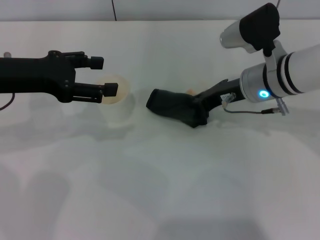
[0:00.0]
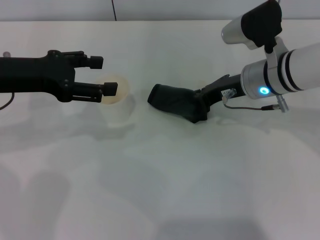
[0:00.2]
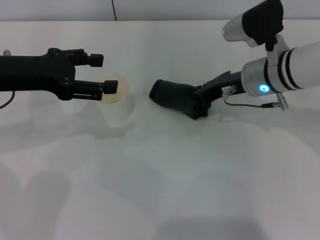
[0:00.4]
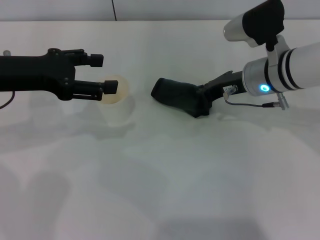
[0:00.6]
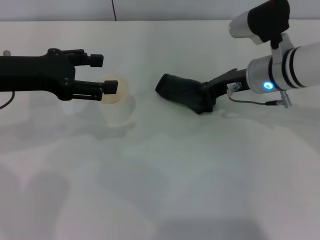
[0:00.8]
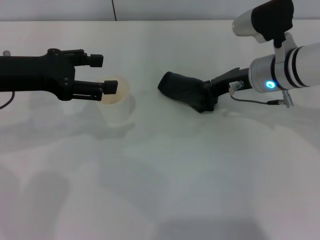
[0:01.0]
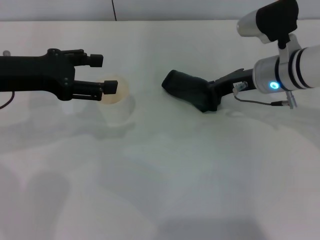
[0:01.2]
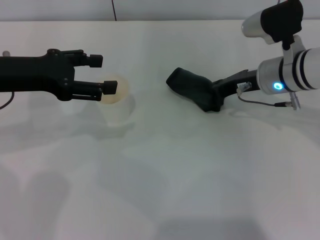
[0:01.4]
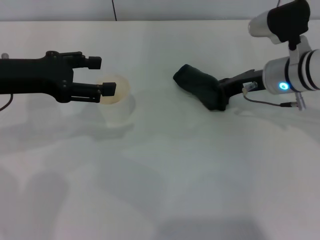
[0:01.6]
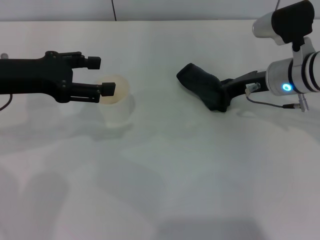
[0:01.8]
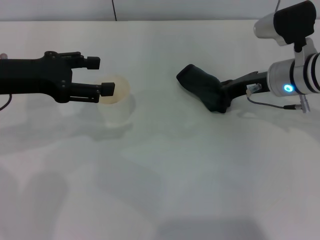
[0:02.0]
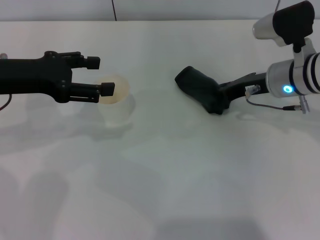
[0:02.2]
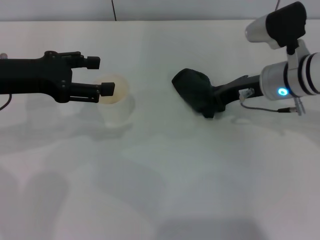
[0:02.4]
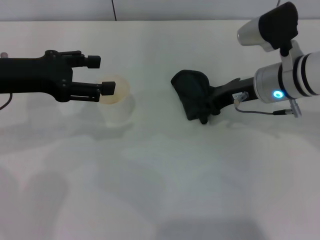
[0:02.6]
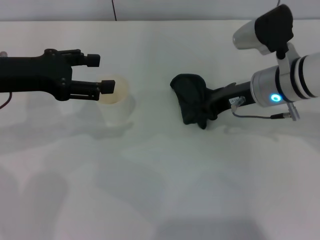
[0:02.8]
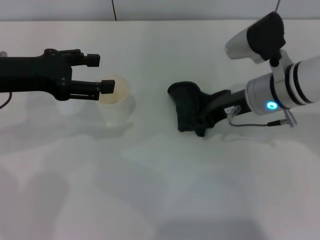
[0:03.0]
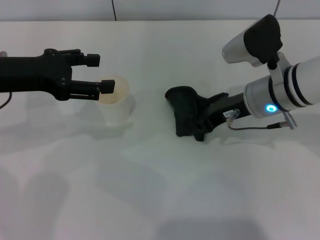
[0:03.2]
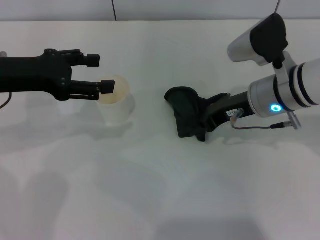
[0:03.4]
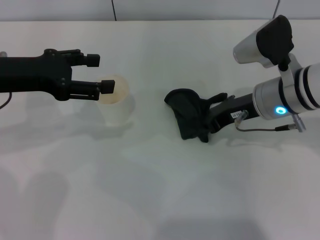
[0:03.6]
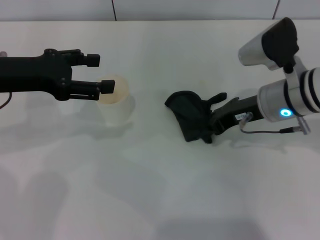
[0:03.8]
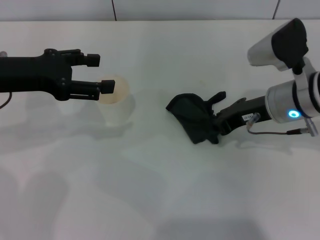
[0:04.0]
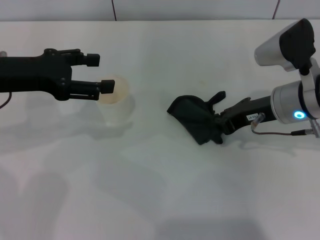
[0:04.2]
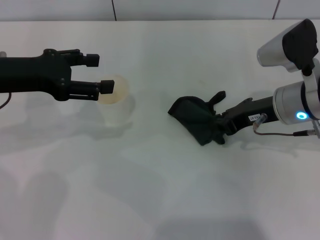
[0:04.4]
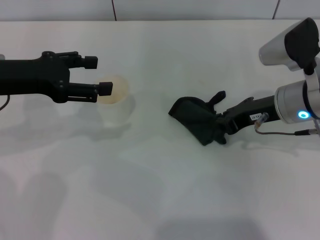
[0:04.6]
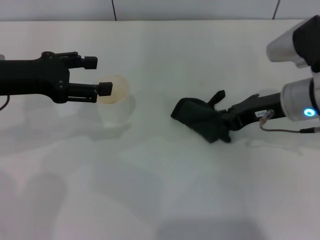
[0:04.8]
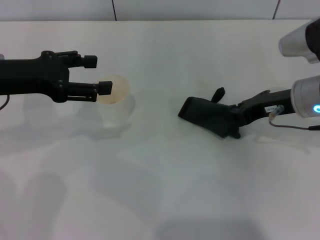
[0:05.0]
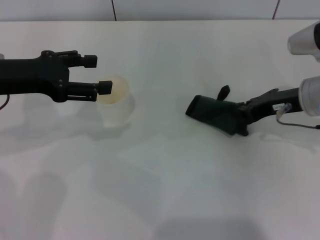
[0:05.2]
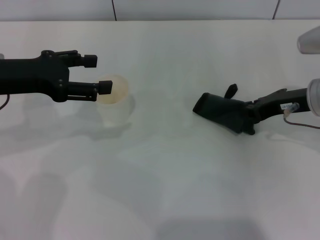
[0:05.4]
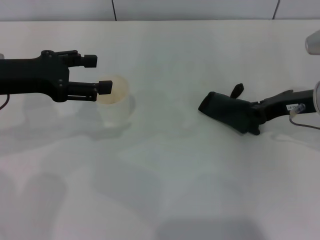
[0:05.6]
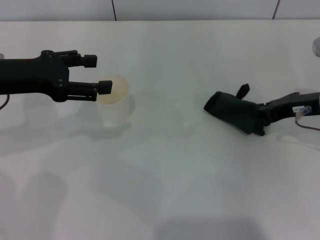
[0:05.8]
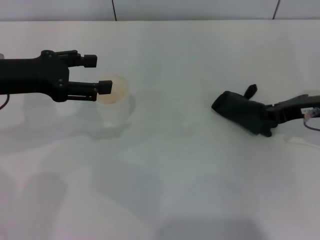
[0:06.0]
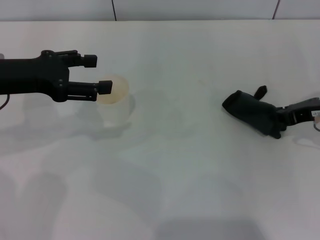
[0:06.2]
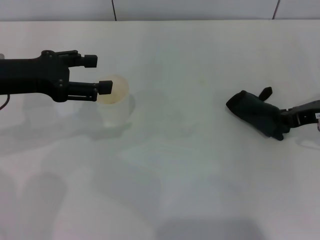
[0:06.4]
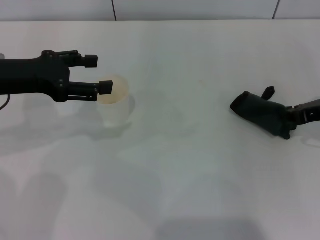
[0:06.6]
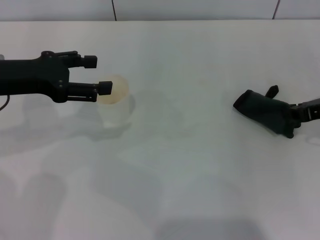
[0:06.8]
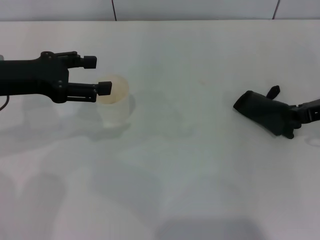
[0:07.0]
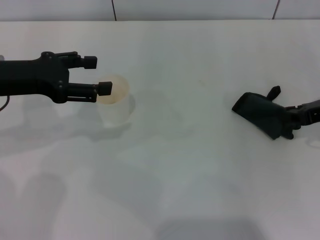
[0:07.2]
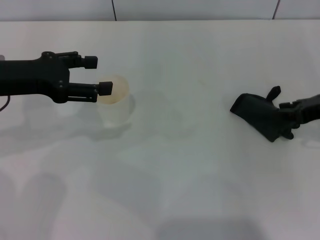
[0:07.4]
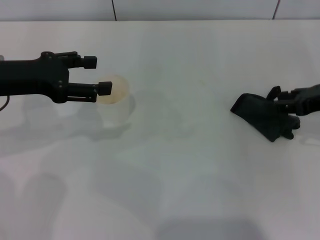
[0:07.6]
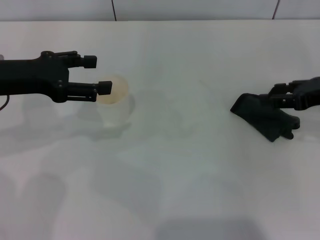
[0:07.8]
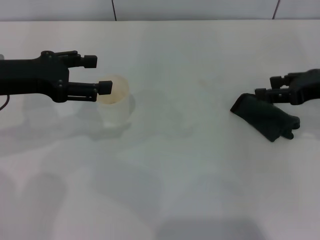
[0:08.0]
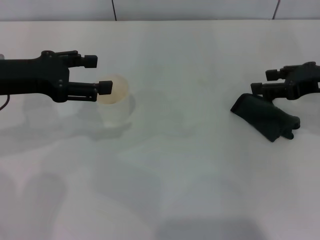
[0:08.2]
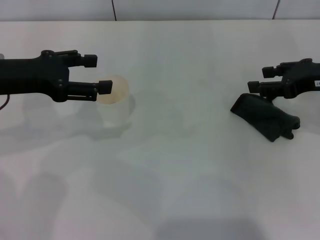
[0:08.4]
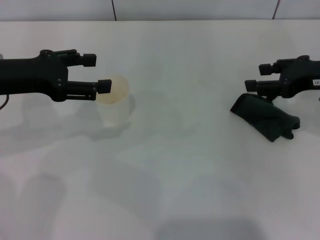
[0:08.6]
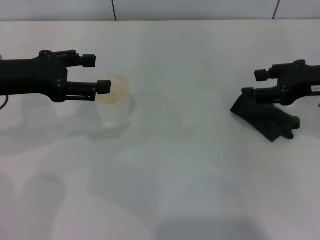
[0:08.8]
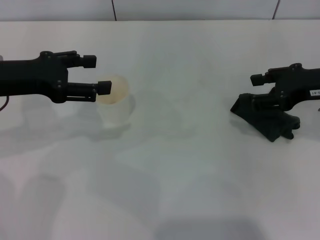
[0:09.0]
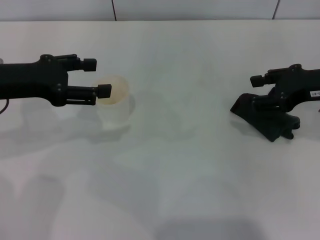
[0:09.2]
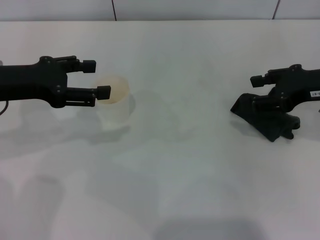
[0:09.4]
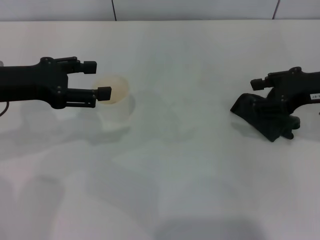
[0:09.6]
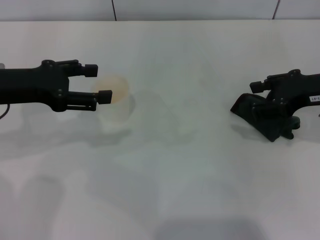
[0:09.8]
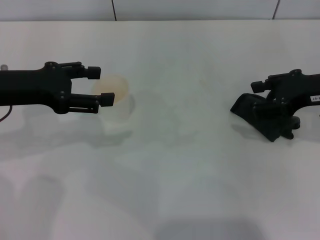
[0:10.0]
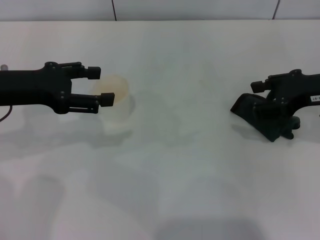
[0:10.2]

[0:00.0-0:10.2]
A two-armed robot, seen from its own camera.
Step, 0:00.0 to 0:06.6: Wipe the stains off the table with the right gripper.
Step, 0:06.8 to 0:07.8: Place the rag on the table with the right gripper.
0:00.0 to 0:04.4: The grippers make only small movements.
0:04.4 to 0:05.8: The right gripper goes roughly 5 cm to the right.
0:05.8 to 0:07.2: The right gripper shifts by roughly 5 cm.
0:07.2 to 0:08.8: The right gripper moves about 5 cm, and opens up.
0:08.8 to 0:10.2: The grippers make only small movements.
